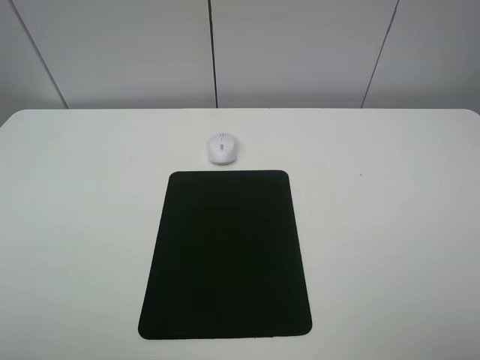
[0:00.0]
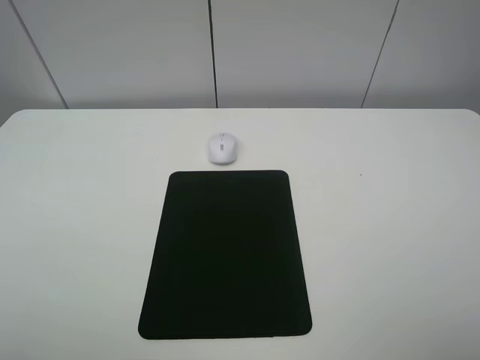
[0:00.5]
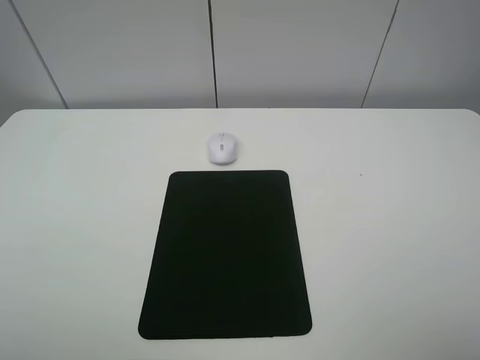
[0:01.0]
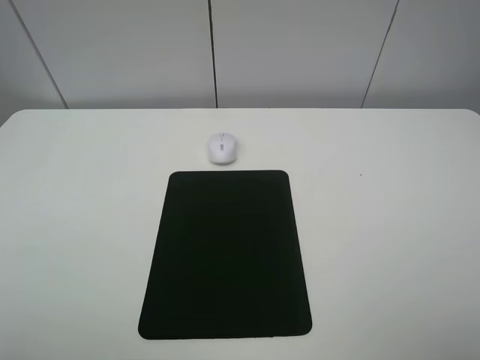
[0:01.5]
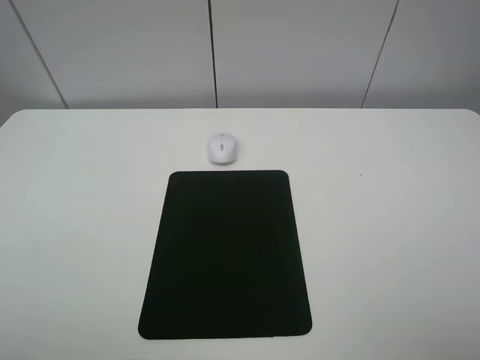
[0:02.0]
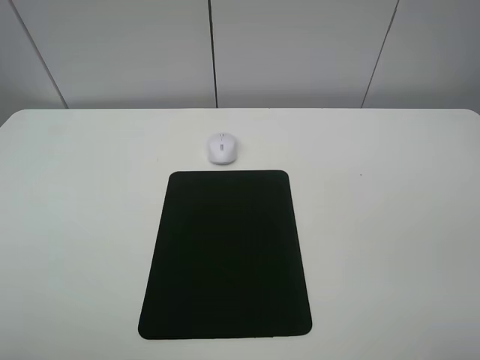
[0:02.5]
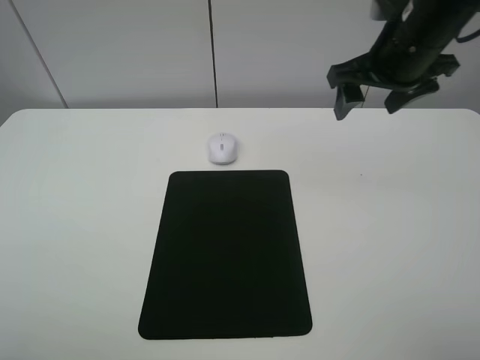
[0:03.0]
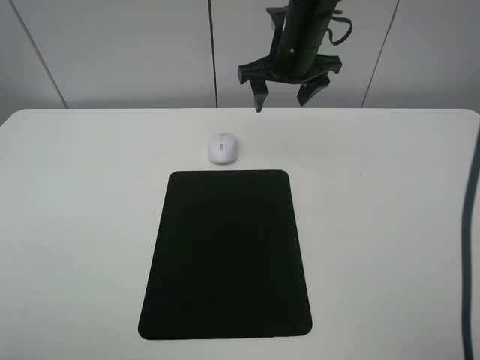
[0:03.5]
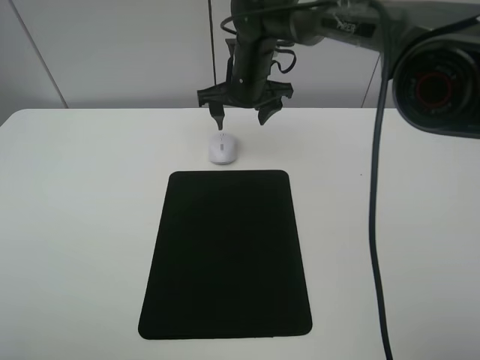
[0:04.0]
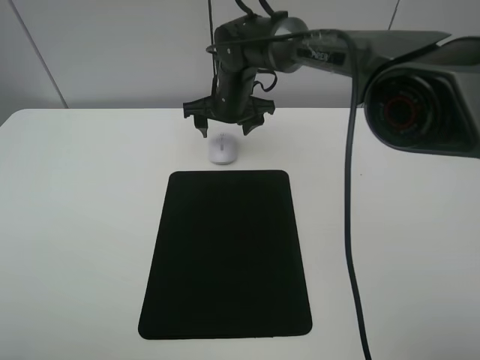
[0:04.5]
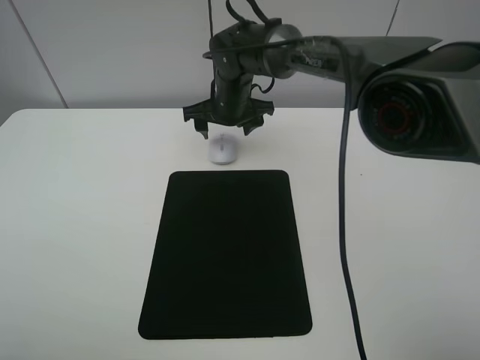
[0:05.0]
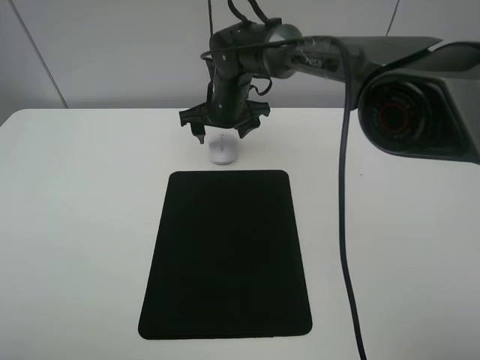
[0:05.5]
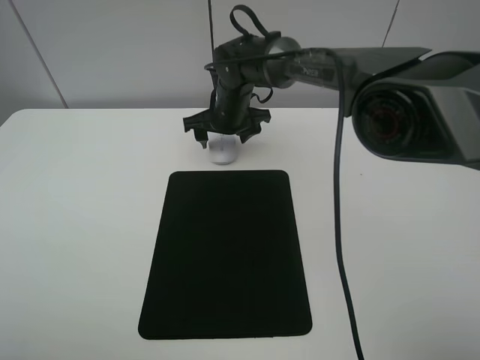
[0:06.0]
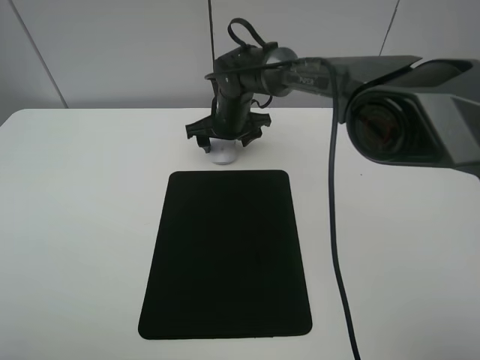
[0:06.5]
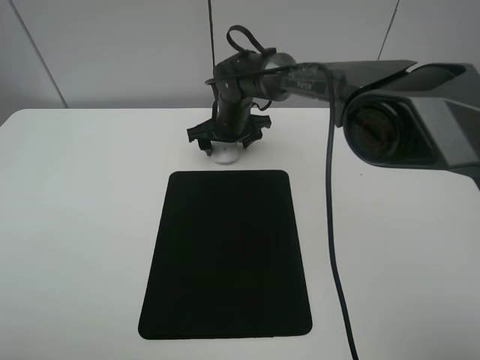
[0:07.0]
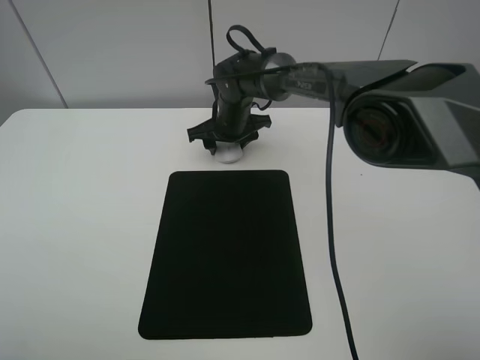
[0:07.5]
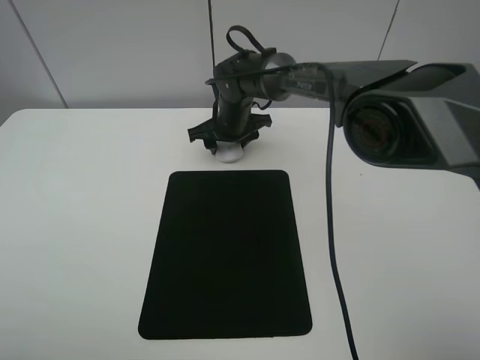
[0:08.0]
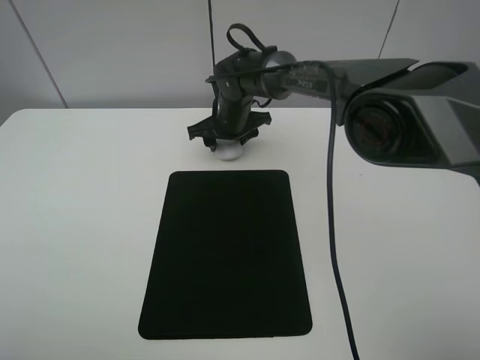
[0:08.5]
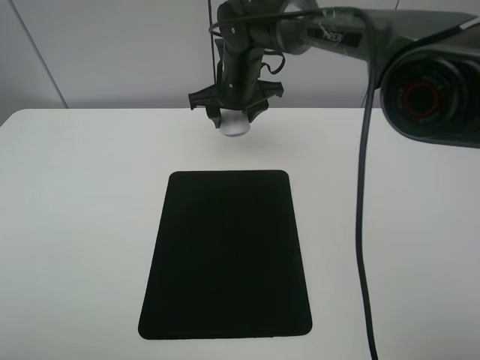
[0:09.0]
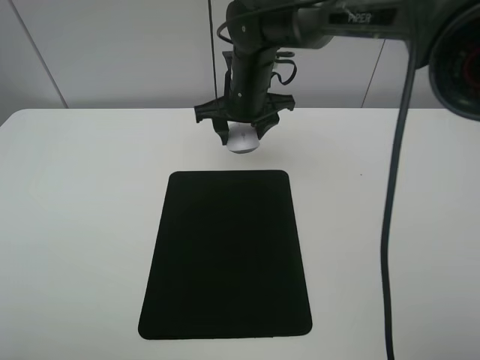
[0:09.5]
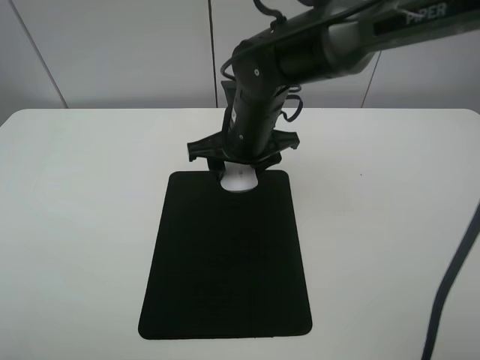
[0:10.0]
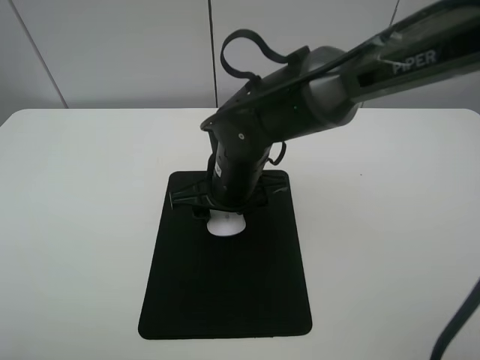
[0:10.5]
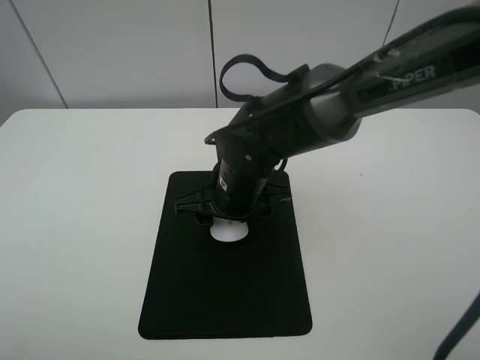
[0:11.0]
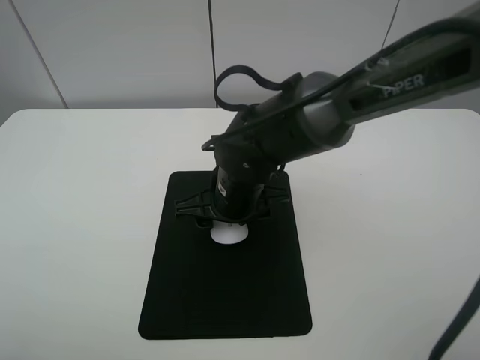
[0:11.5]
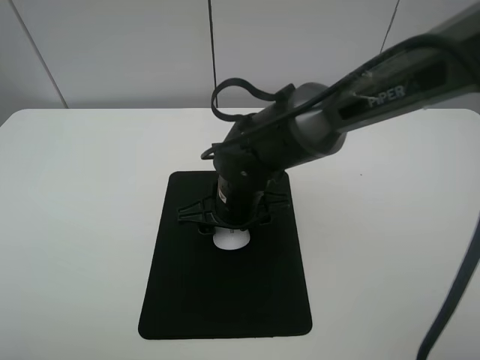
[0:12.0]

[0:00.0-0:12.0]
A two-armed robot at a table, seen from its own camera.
Step, 0:00.0 to 0:08.0: Grasp the mouse with the right gripper.
0:00.0 to 0:02.0: The two grippers keep their place.
0:02.0 to 0:04.0: The right gripper travels forward and to the left by about 50 cm.
0:04.0 to 0:06.0: The right gripper heads downward, covering approximately 5 cm.
0:06.0 to 0:08.0: The right gripper closes.
0:08.0 to 0:10.0: The right gripper shifts roughly 15 cm backward and upward.
0:10.0 to 0:12.0: The right gripper shifts roughly 10 cm backward and downward.

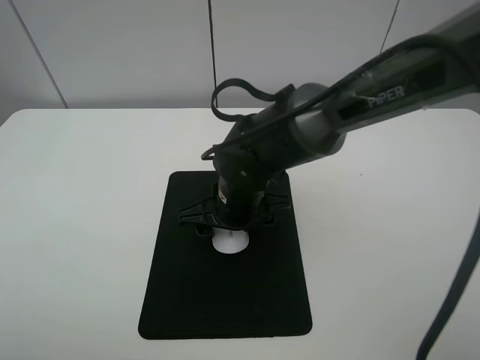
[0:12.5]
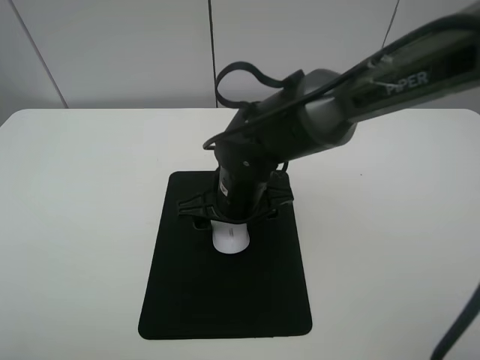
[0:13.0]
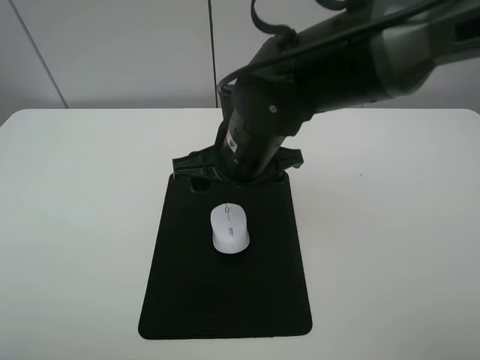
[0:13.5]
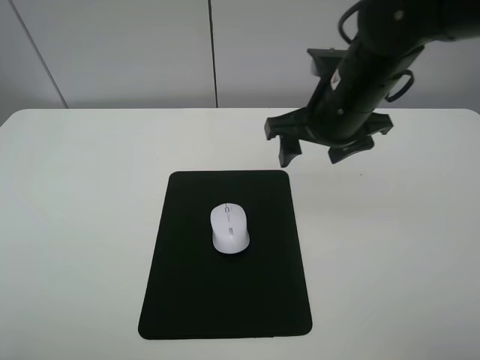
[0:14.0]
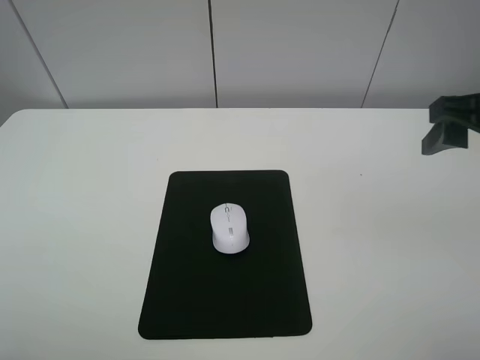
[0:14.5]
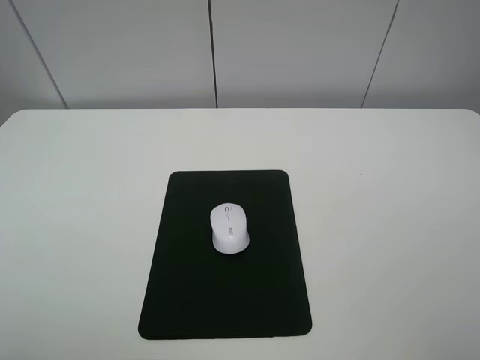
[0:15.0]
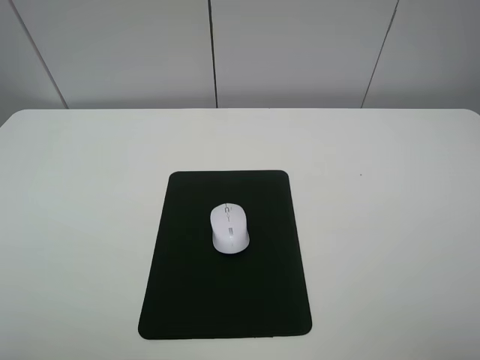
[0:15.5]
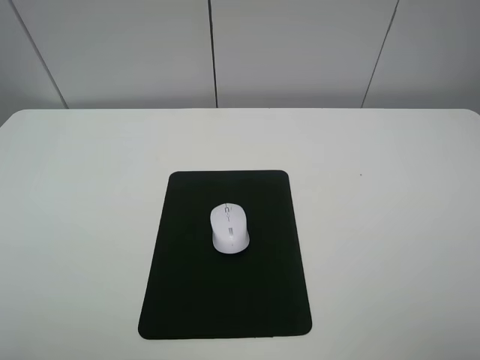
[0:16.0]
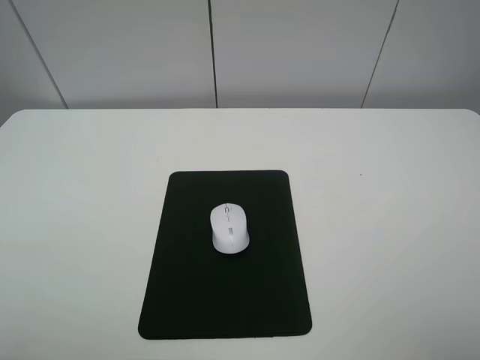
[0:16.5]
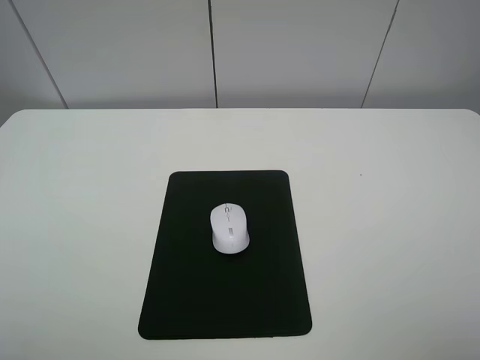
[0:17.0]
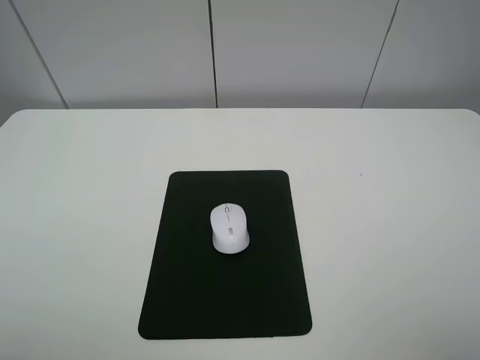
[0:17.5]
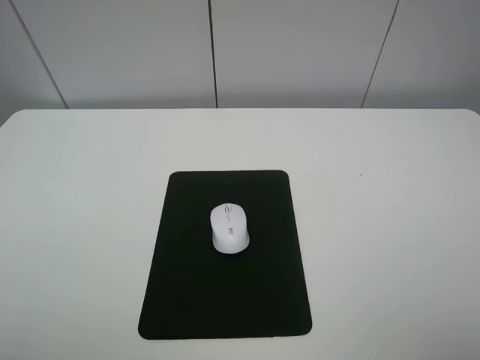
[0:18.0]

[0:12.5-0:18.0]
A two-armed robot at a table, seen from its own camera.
0:12.5 to 0:14.5: The right gripper shifts approximately 35 cm to the right and upward.
0:14.5 to 0:16.0: The right gripper shifts about 20 cm backward.
